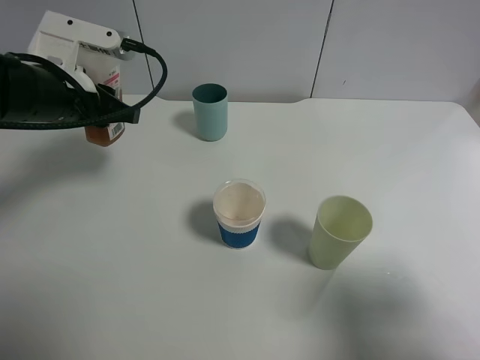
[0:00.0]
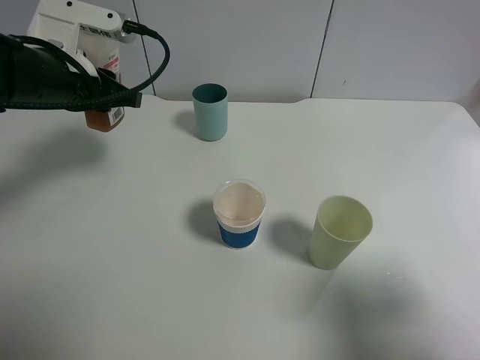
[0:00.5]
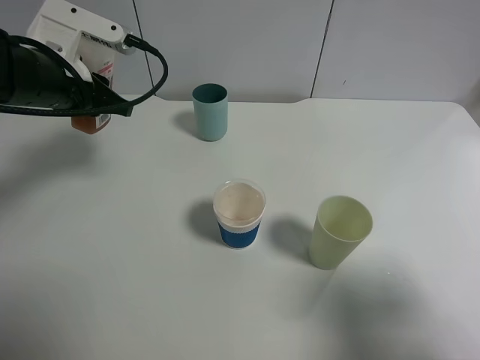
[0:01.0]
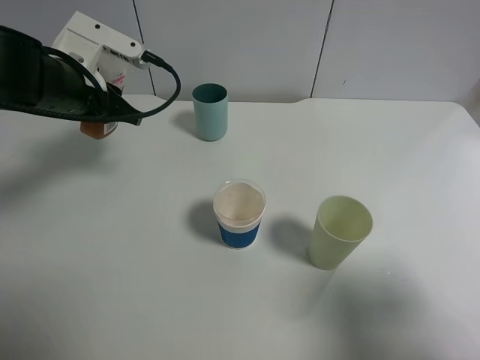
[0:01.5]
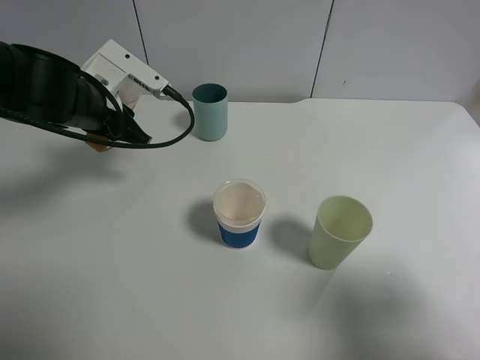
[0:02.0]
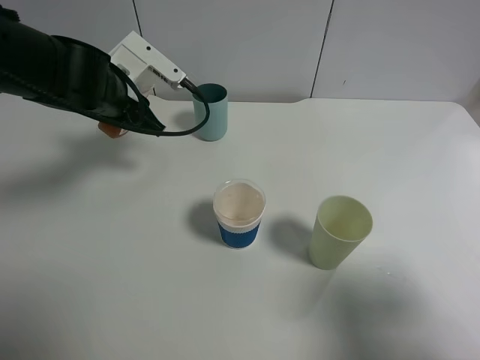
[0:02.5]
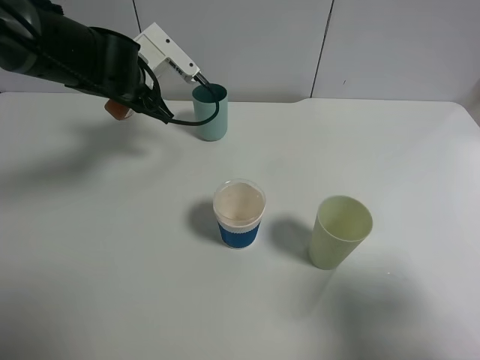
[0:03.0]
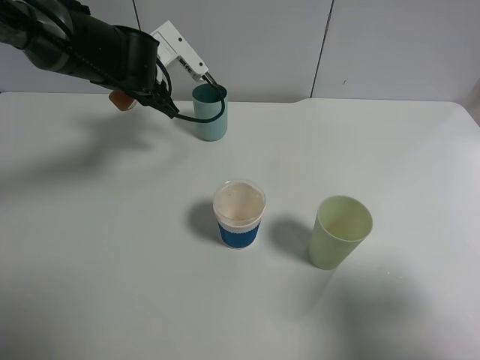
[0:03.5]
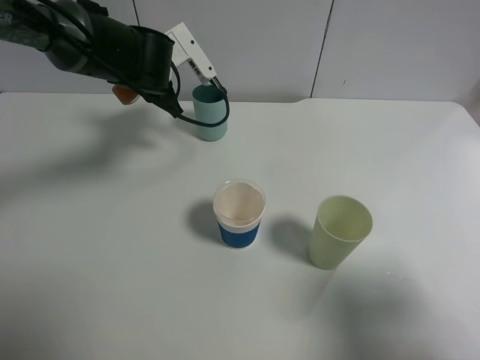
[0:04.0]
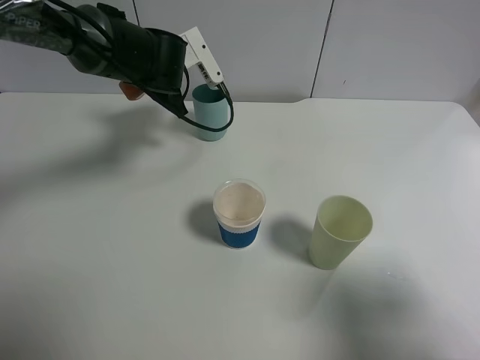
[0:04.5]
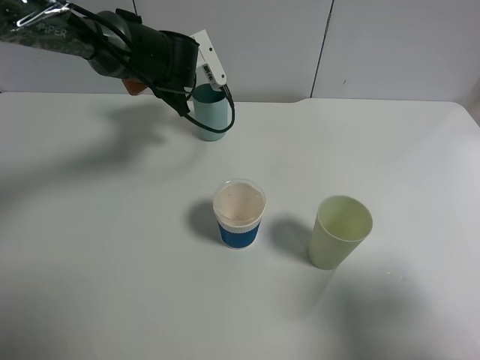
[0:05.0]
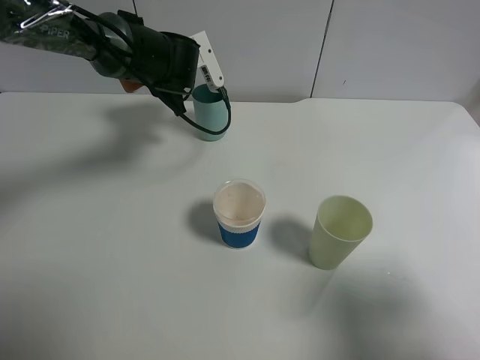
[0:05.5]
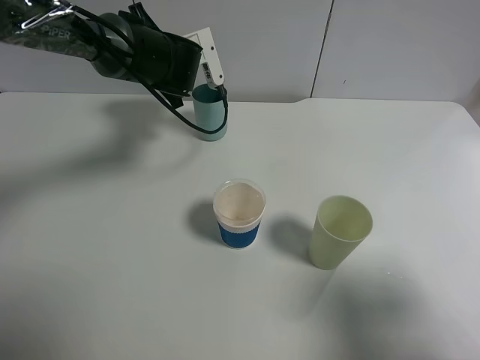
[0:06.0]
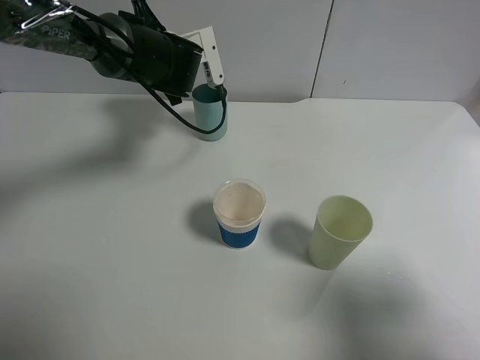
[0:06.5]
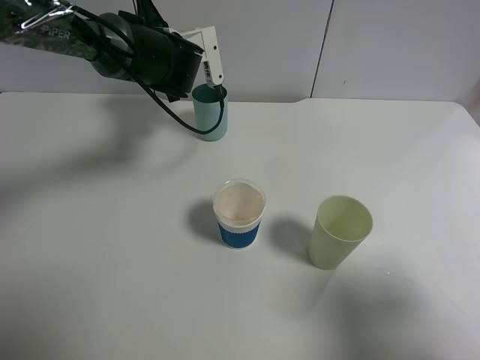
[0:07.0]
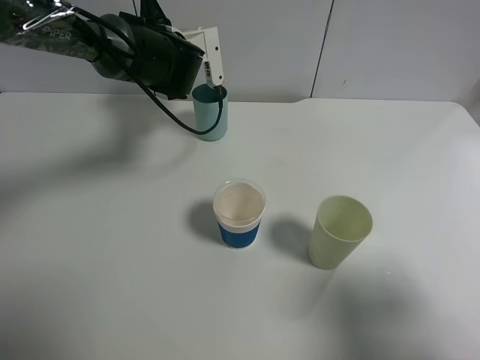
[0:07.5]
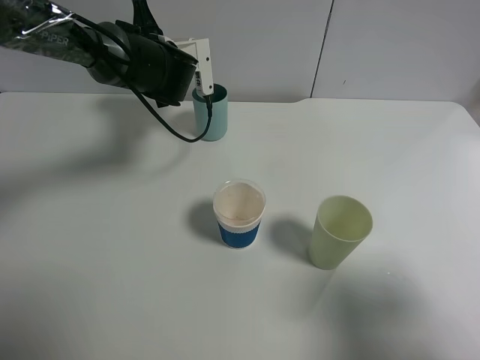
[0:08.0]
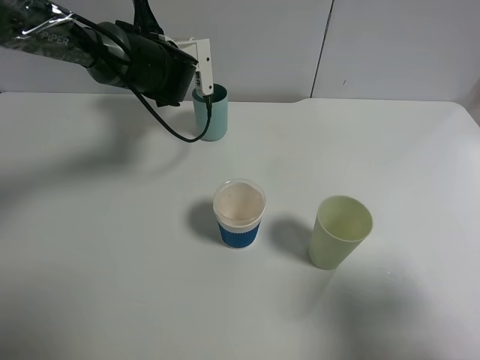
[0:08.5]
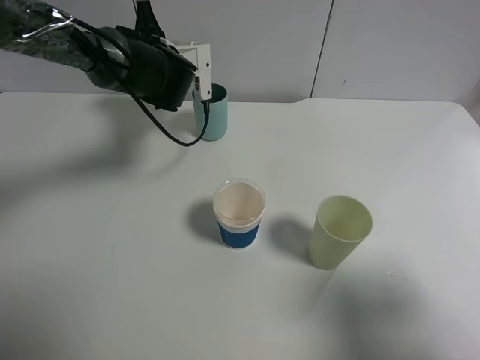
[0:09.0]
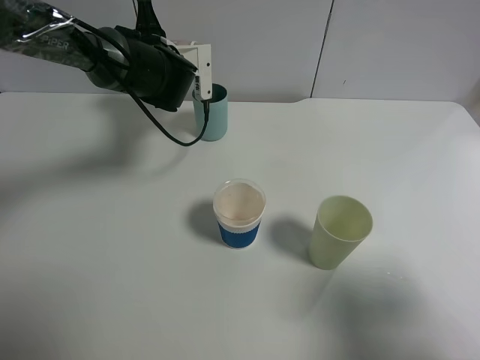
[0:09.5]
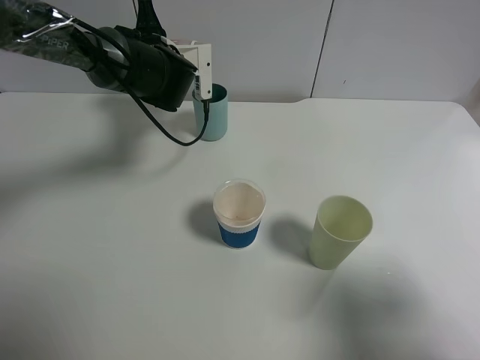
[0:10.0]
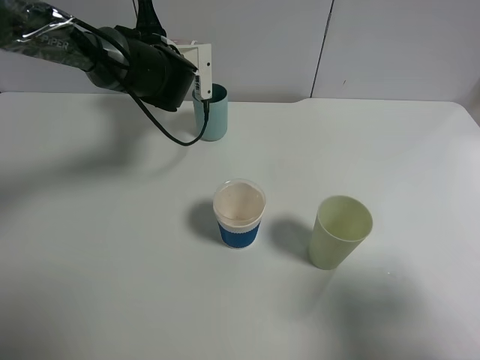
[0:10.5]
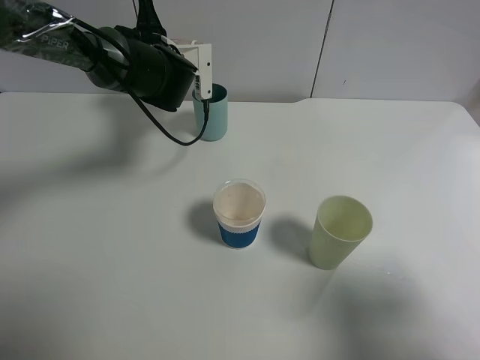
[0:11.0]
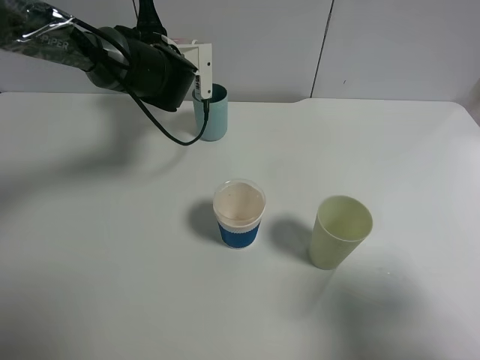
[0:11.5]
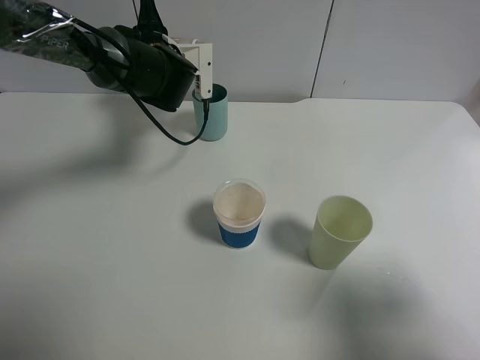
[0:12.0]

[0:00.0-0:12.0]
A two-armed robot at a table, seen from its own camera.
Task of the whole recording: use a gripper to hold the bottle of the drink and pour it into a random cup.
0:02.0 to 0:04.0: The left gripper heads forward and to the right, covering some 10 cm.
0:04.0 to 0:06.0: The grippers stay close to where they were, moving slightly.
0:06.0 to 0:10.0: There are only small adjustments of the grippers.
0:10.0 to 0:12.0: Neither gripper changes place.

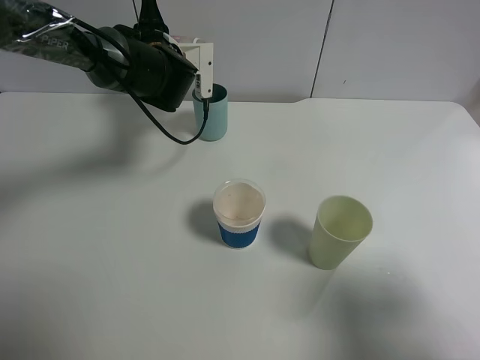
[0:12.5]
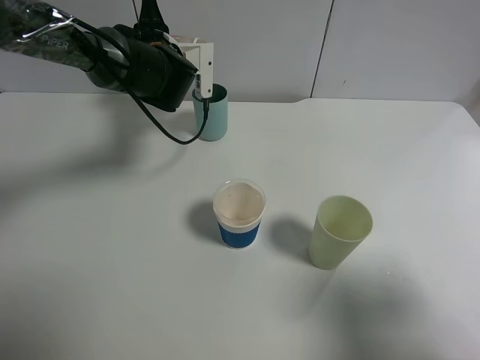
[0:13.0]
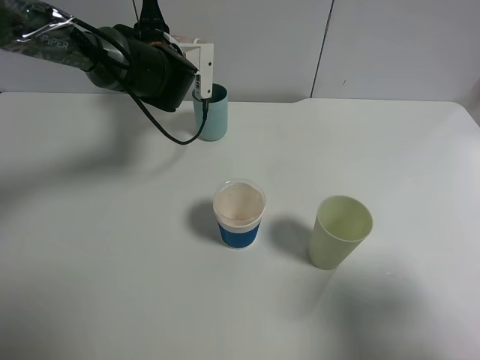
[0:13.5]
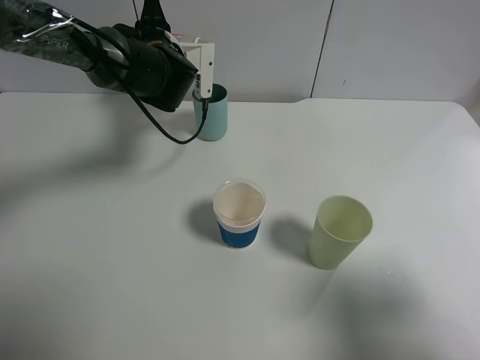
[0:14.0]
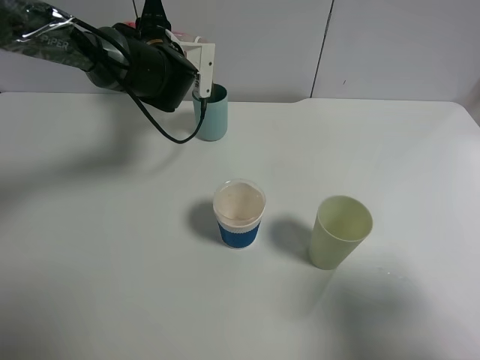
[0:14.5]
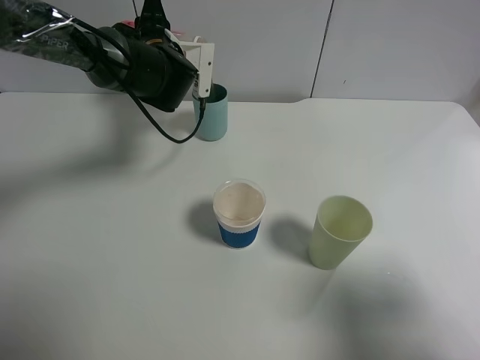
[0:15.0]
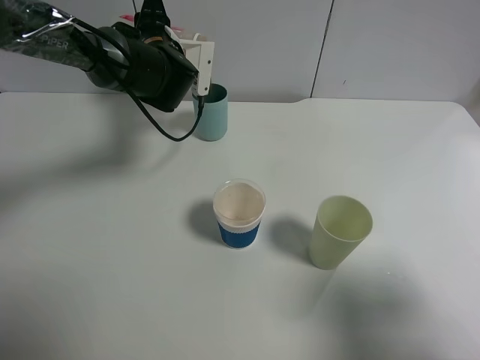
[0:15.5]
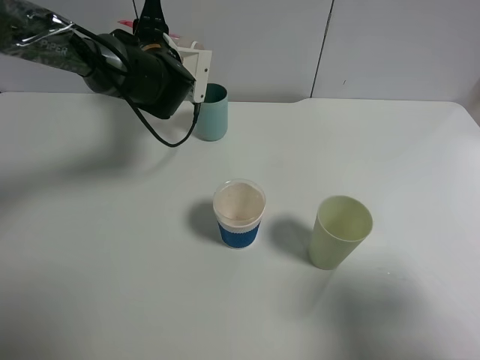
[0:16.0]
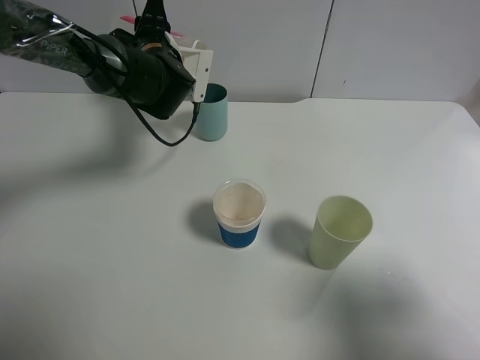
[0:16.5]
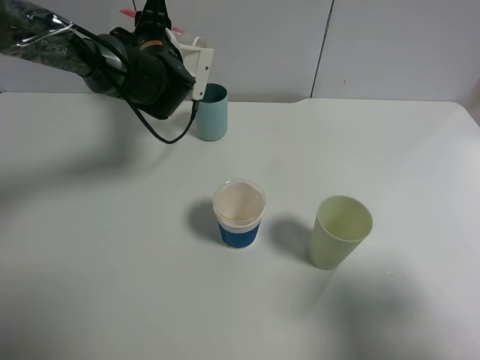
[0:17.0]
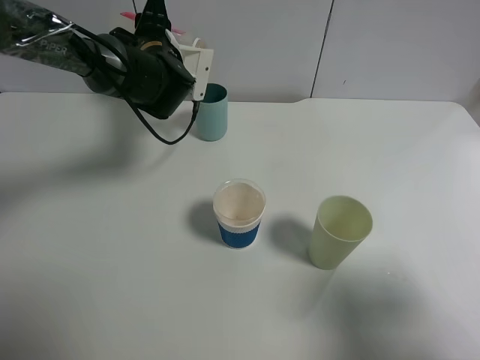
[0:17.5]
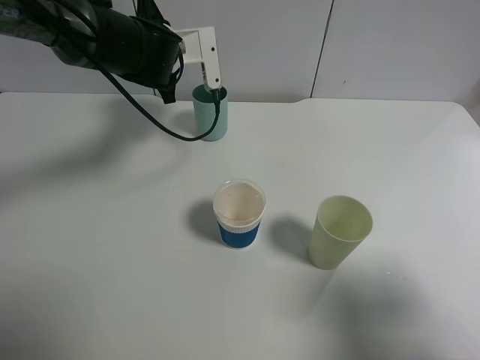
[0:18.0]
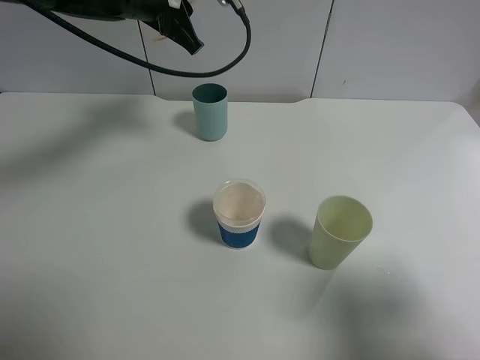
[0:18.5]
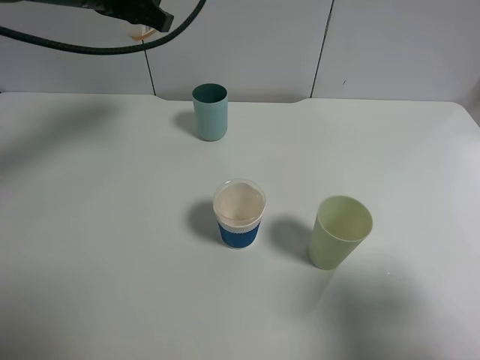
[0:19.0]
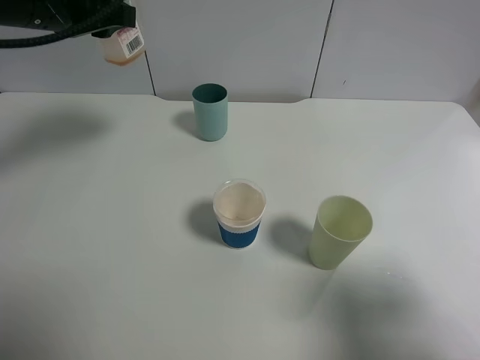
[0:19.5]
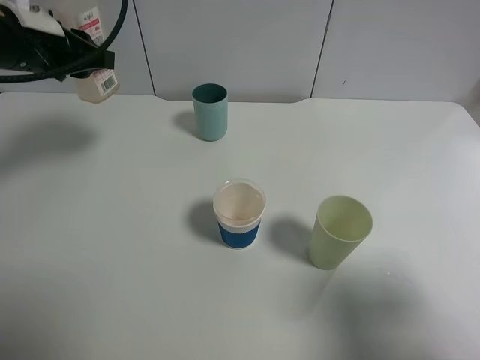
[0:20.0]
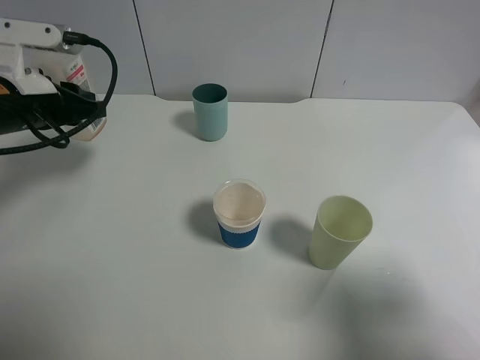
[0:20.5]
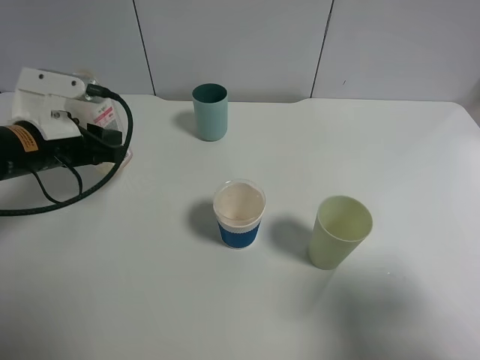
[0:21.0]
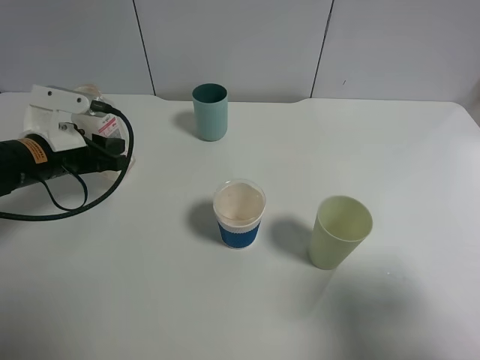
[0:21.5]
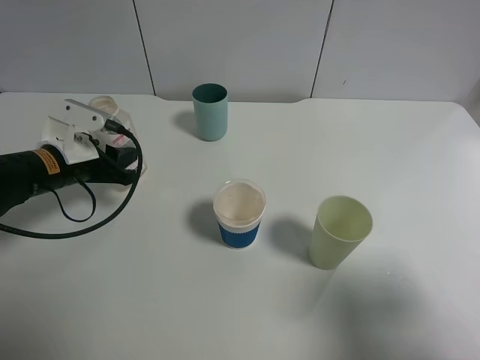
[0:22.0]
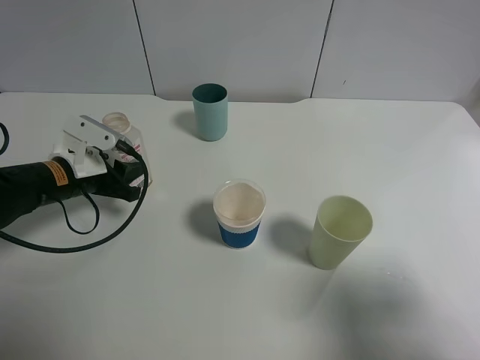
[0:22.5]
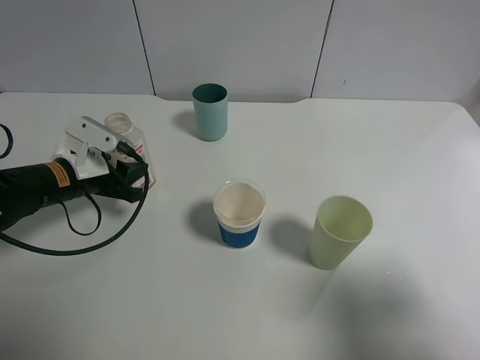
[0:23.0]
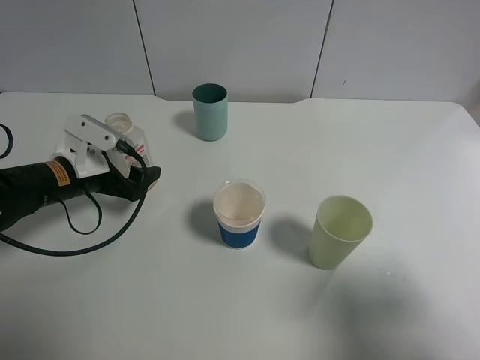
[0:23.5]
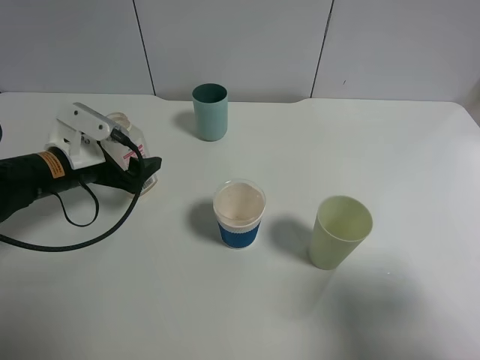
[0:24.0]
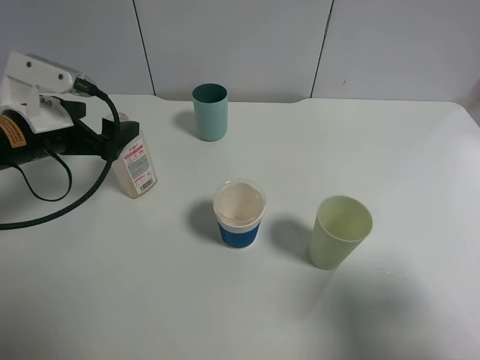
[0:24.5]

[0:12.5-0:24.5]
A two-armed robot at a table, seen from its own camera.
Task of the whole recording: use a gripper to hold the bottle of the drink and pour it into a random cup.
Step, 0:12.5 to 0:18.0: Pour the cranberry juice into the cyan cup with the left gripper.
Step, 0:18.5 to 0:23.5: Place the cranberry juice bottle on the table with the left gripper.
0:12.5 to 0:14.5: Neither gripper changes place.
0:14.5 to 0:16.5: There are only small adjustments of the grippers.
0:16.5 to 0:18.5: The left gripper is displaced upward by about 10 cm.
0:18.5 to 0:20.5: The left gripper is displaced to the left, backward and downward by about 20 cm.
0:20.5 to 0:22.5: The left gripper shifts some 10 cm downward.
0:22.5 to 0:24.5: The left gripper goes approximately 10 cm upward, and opens its fingers.

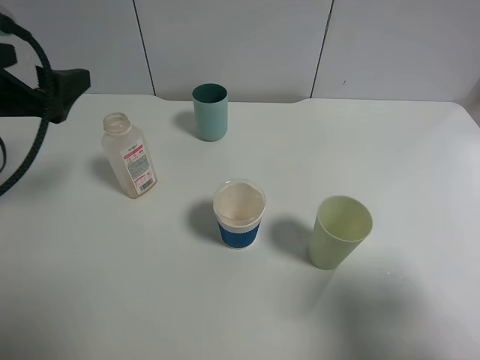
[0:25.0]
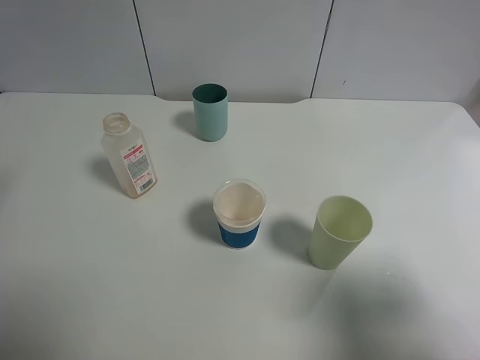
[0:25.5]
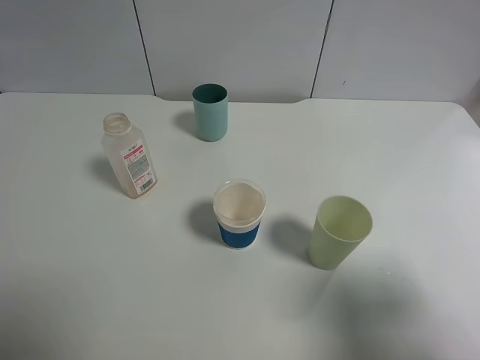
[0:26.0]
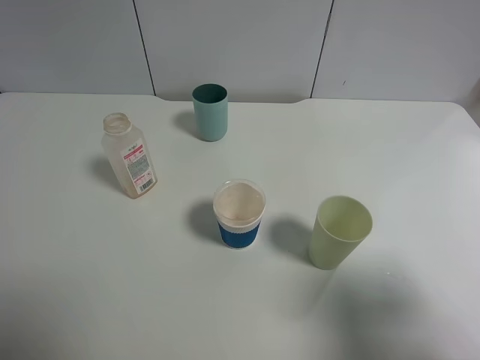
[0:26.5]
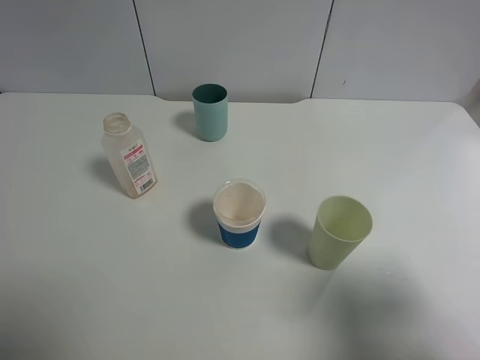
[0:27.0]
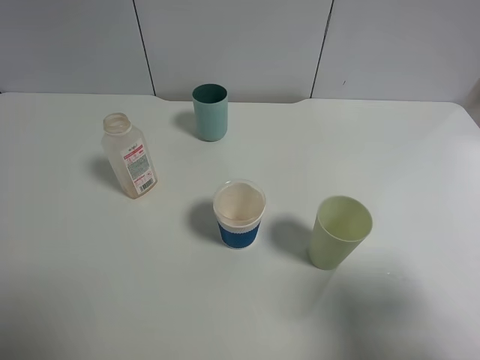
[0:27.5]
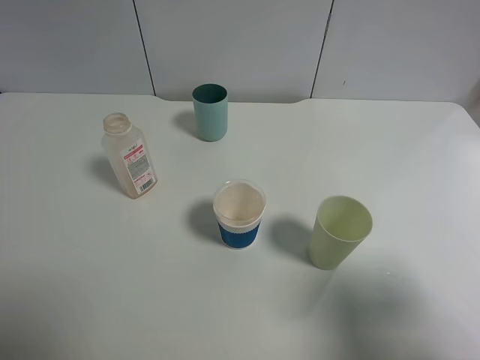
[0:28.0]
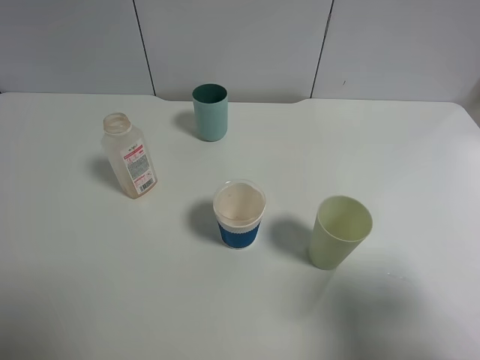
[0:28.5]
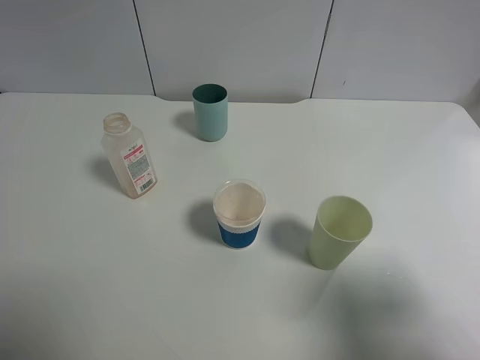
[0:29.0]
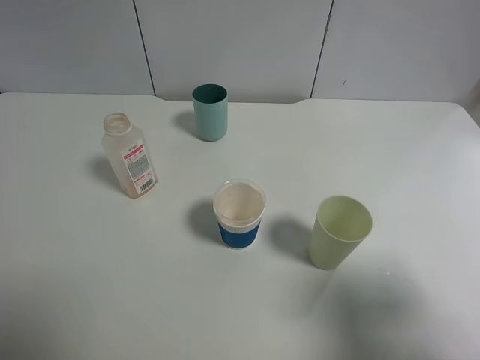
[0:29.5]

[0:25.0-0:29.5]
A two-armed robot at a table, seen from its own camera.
Task of the whole recording: use a gripper to hold the bottle of the drink and pour it into a random cup.
0:25.0 to 0:27.0: The left gripper goes roughly 20 cm backward.
